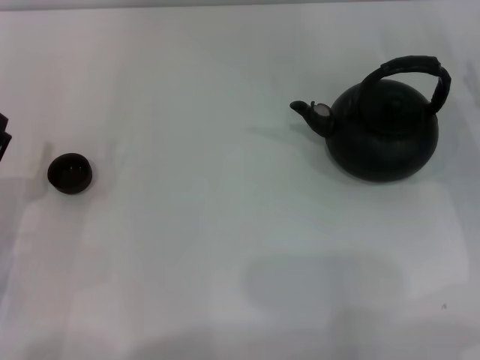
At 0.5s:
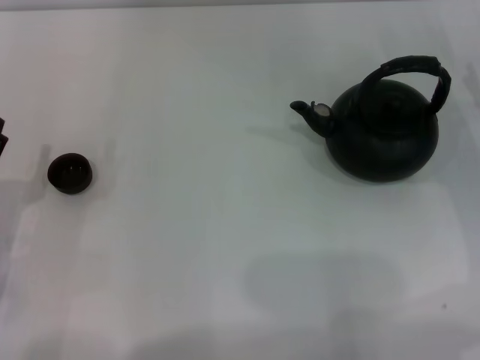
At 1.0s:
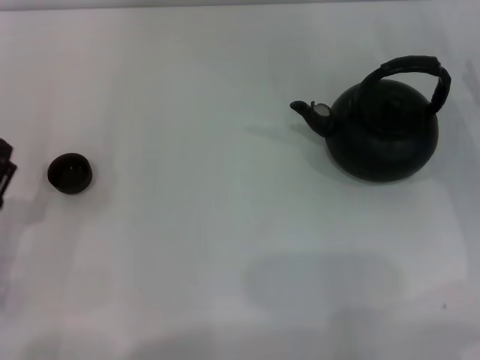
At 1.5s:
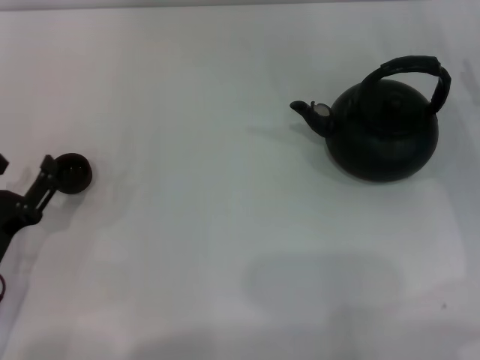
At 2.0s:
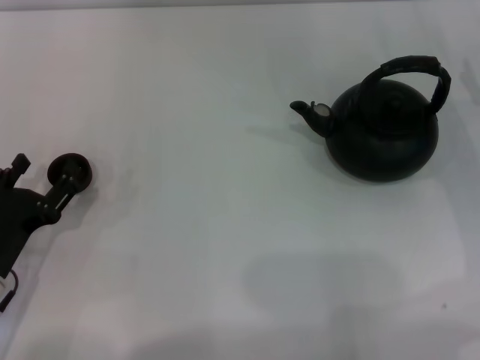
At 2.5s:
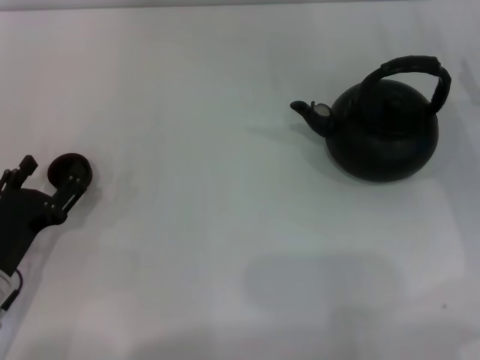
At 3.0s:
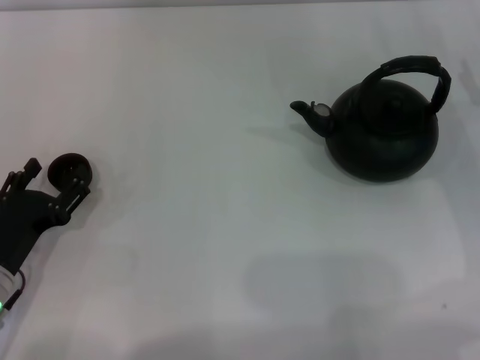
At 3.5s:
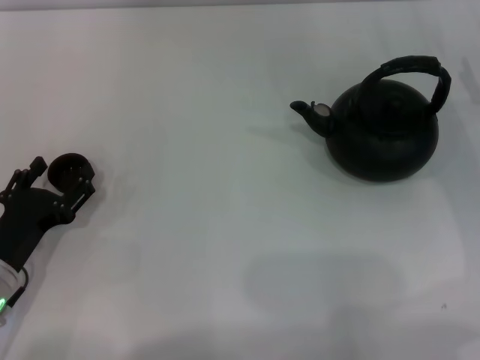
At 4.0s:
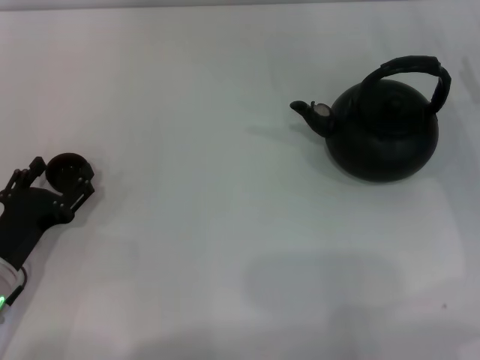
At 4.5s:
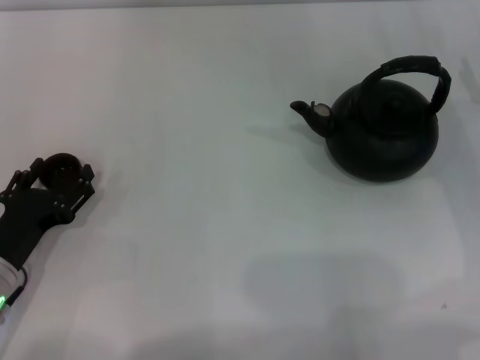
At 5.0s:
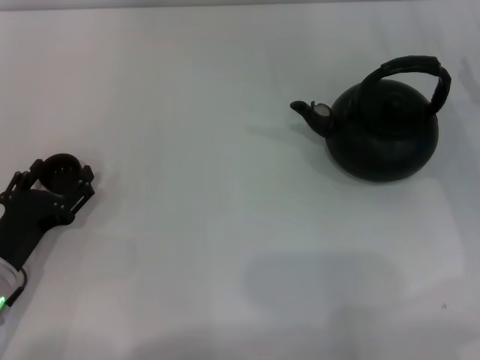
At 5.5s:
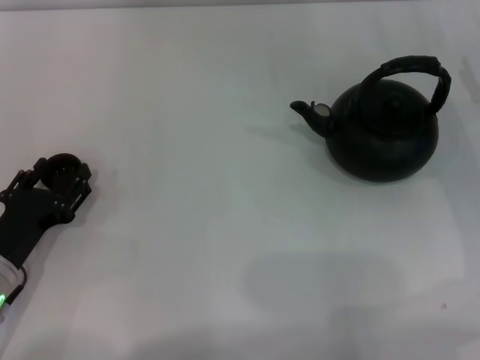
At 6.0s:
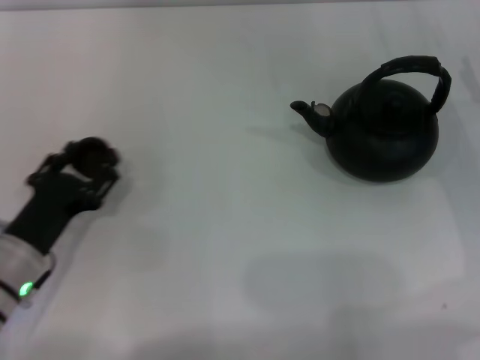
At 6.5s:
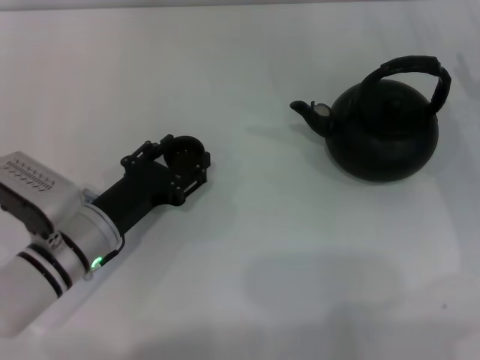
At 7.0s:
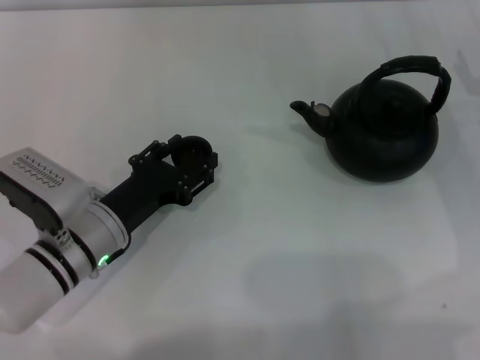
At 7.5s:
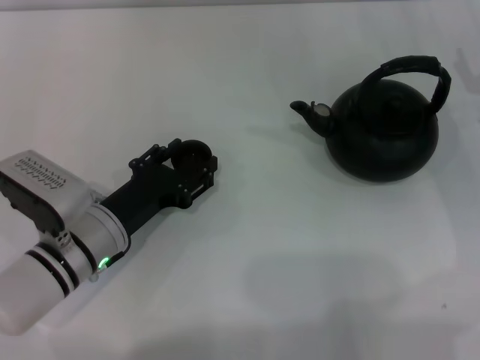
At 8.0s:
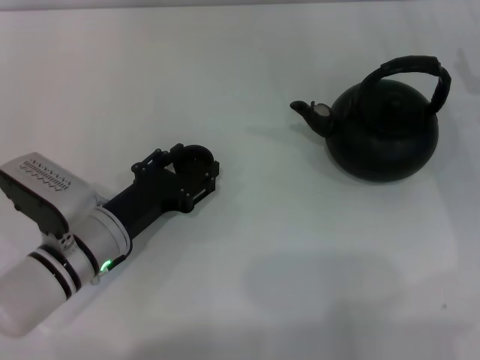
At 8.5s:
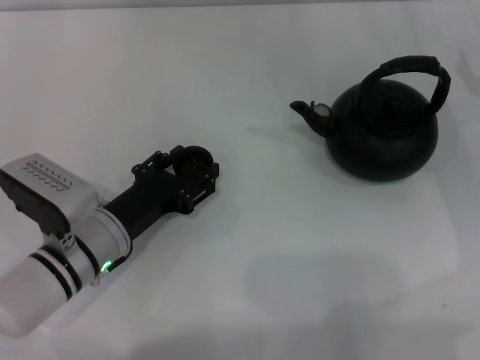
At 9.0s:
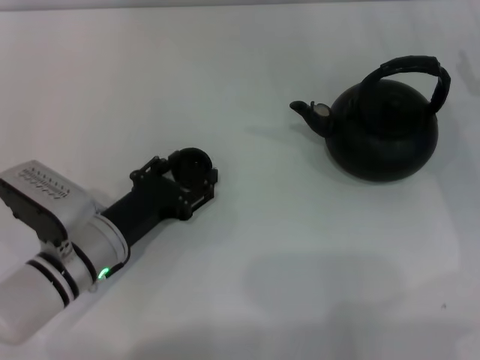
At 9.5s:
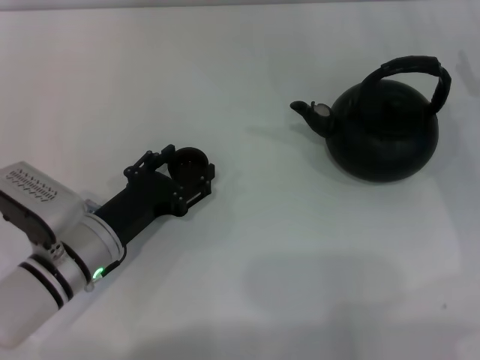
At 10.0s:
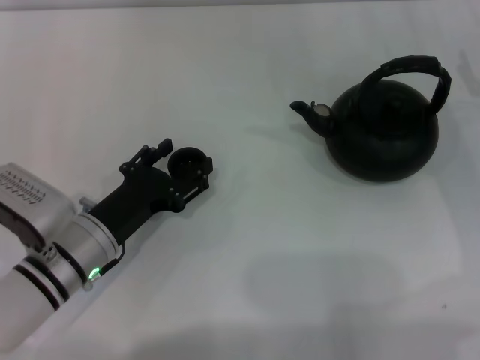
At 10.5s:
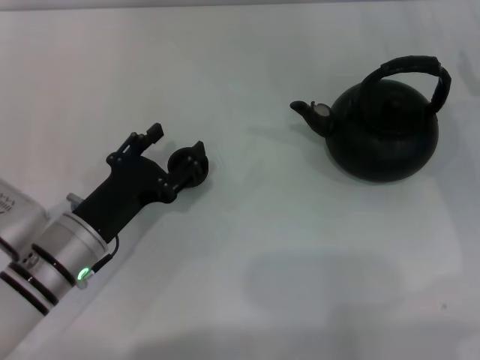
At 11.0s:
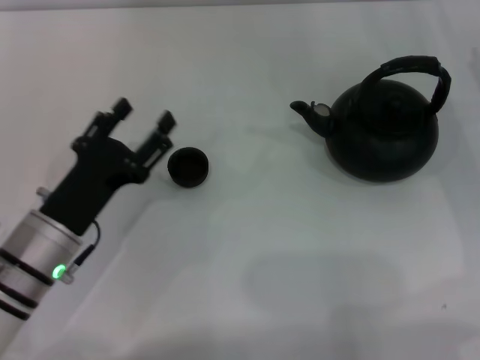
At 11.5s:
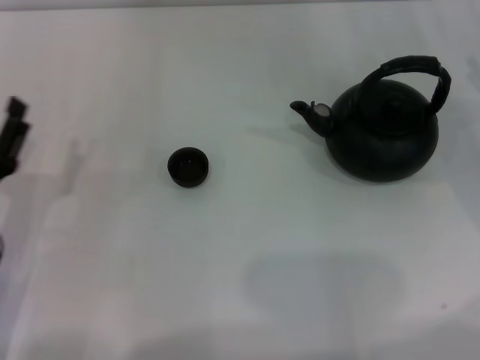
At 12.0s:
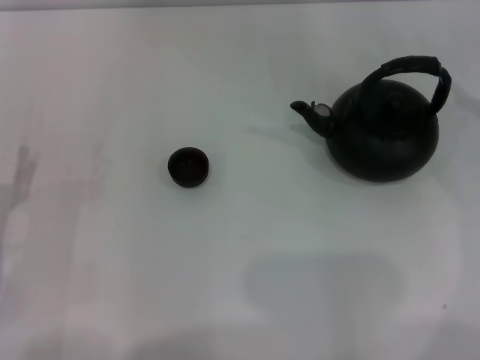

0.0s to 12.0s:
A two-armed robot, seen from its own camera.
Task of the whole recording: Grasp the handle of the teapot with one hand and pour tea into the teacup.
Step, 0.0s to 5.5s: Pick up the teacup with the left gripper.
Step, 6.0s to 11.0s: Place the teacup in the center of view with the left gripper.
0.0s to 2.0s: The grippers make only small movements.
2.0s to 4.0s: There are only small adjustments of the grippers.
4.0s to 6.0s: The left gripper closes its fingers.
6.0s to 8.0s: The left gripper moves to the right, roughly 5 cm.
8.0s to 10.0s: The left gripper opens its fingers.
10.0s to 12.0s: The right gripper travels upward by some 10 cm. The left gripper goes about 15 cm to the left and backward.

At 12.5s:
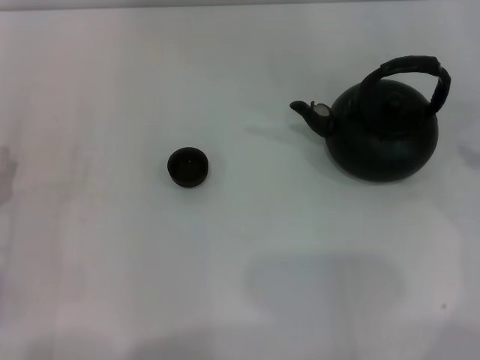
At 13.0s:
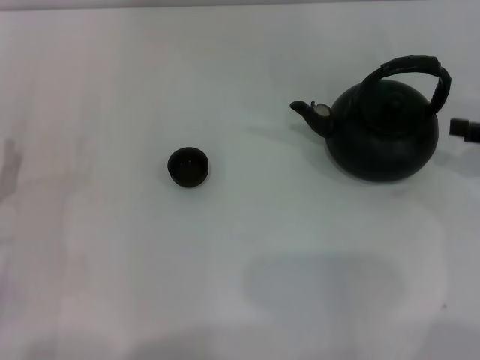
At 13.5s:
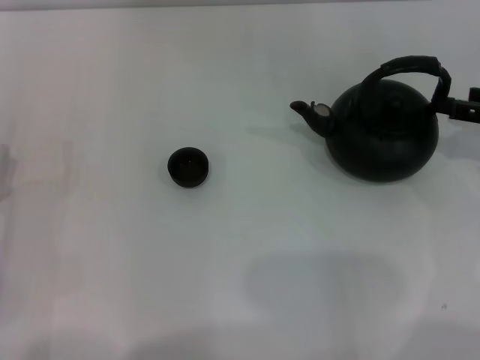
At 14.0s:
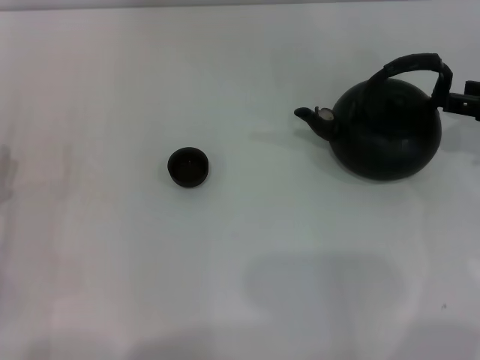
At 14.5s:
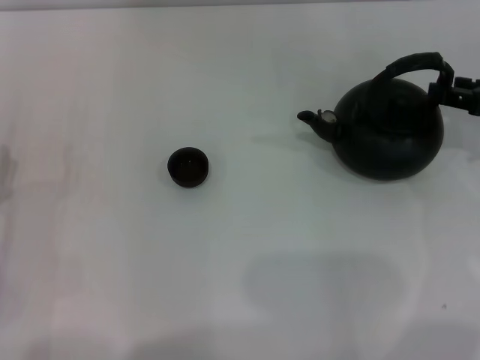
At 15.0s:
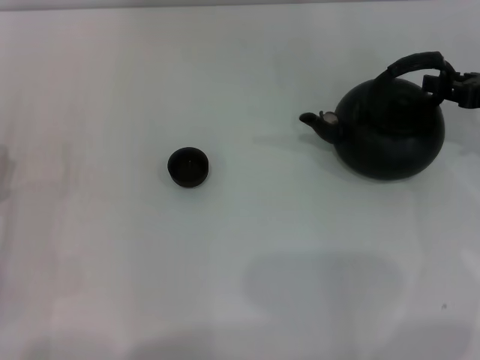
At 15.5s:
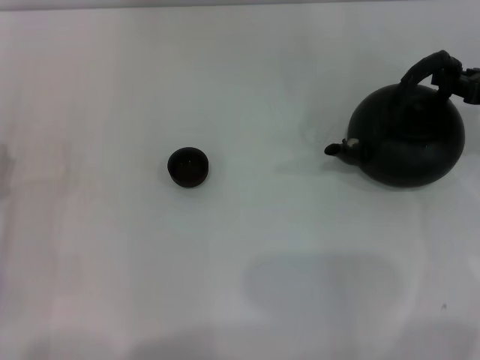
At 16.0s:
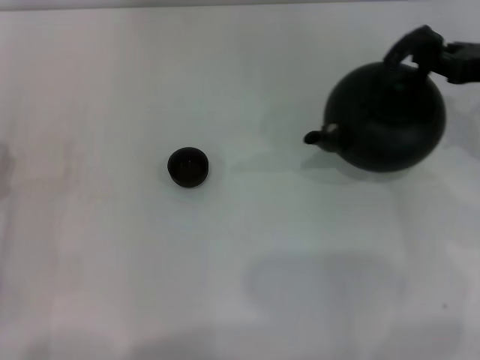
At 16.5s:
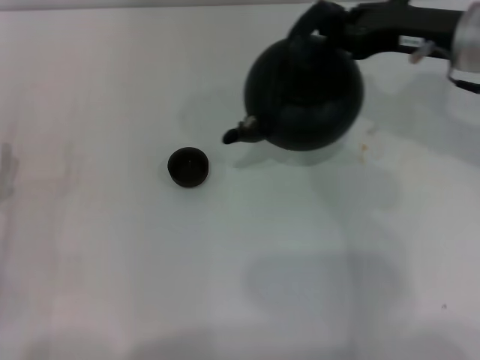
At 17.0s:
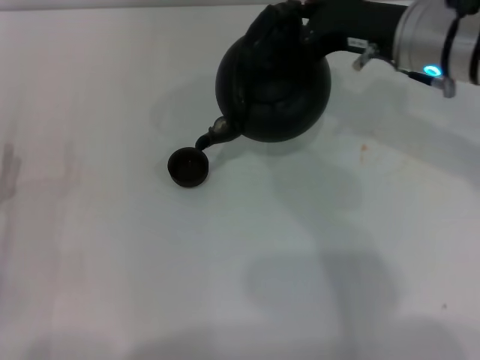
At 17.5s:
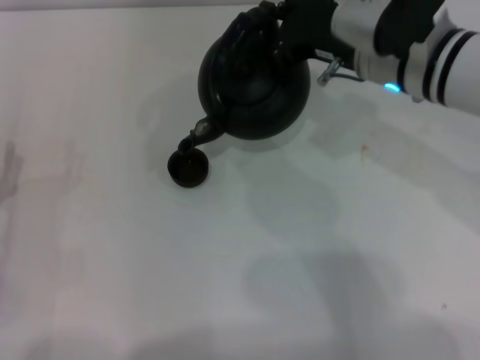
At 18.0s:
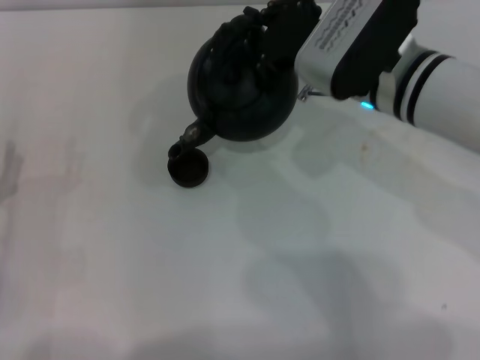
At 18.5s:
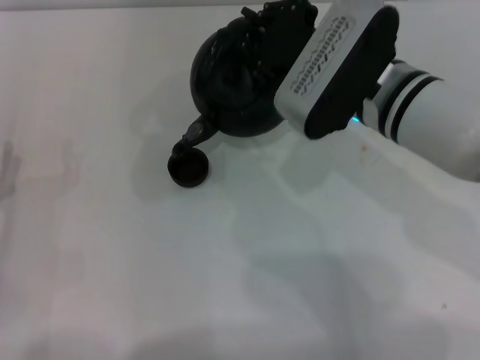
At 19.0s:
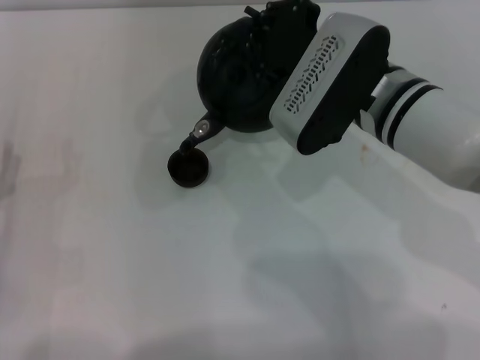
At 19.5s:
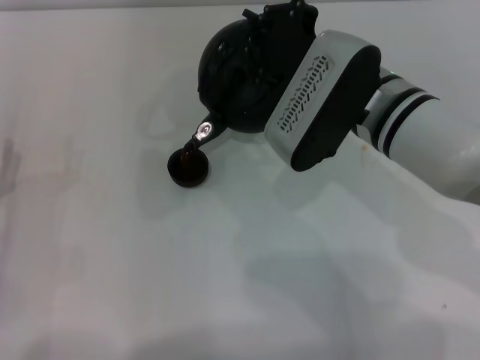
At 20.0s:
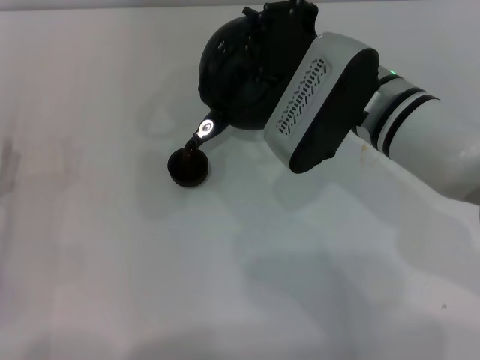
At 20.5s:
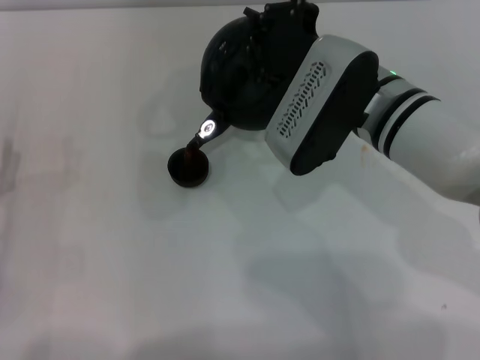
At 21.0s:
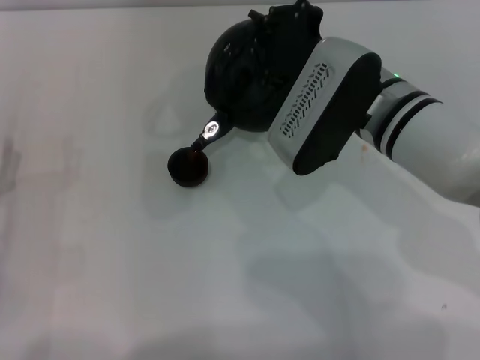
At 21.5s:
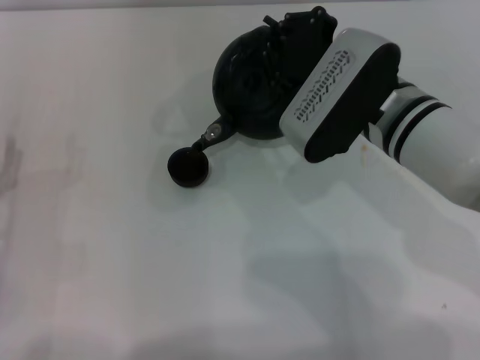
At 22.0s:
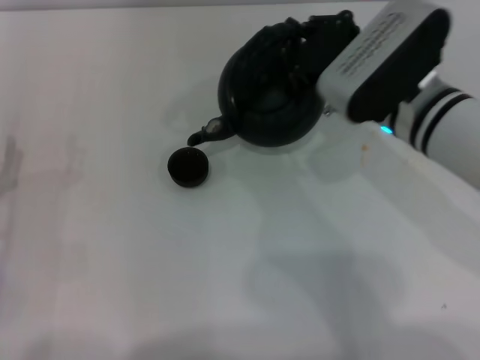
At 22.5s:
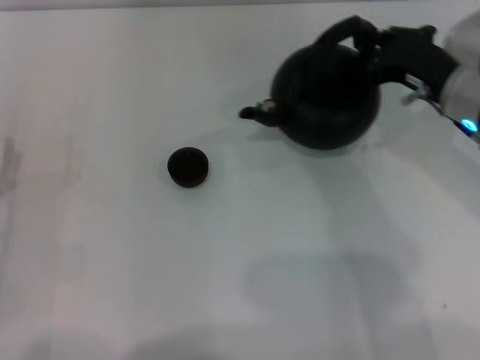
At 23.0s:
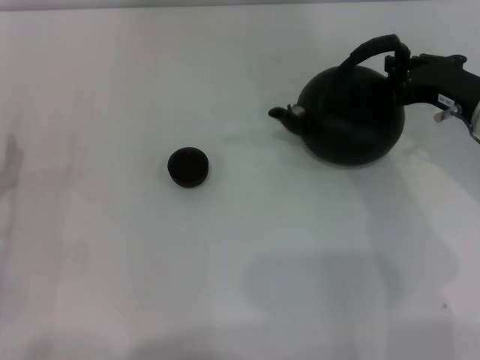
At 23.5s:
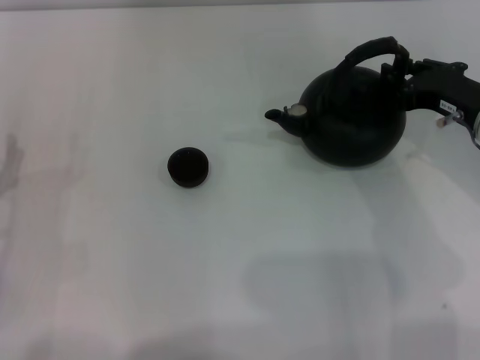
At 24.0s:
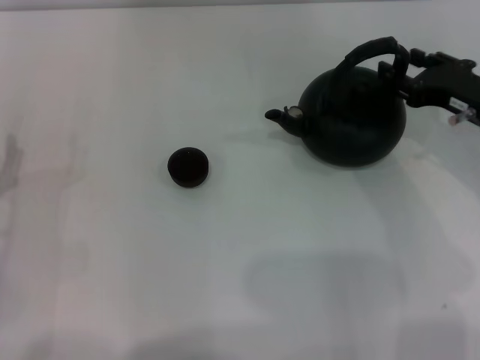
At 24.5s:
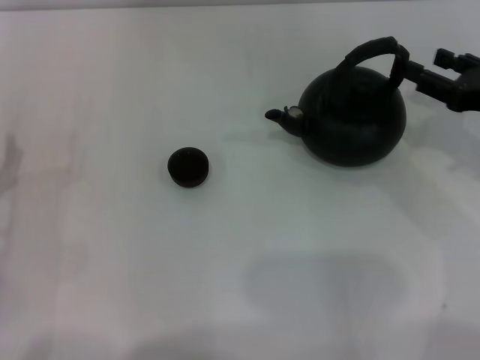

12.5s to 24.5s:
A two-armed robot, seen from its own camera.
Task of the whole recording: Grasp the handle of the teapot with one hand and pour tea into the teacup.
Step, 12.5s to 16.0s: Pick up the teapot with the right gripper.
Step, 16.5s to 22.0s: Pour tea into the teacup with the right gripper.
Step, 22.5s to 24.5s: Put down the teapot with the right gripper.
12.5s to 14.5s: The right gripper goes about 10 cm forward and to the left.
14.5s to 16.5s: The right gripper is displaced to the left and upward by approximately 15 cm, and closes.
16.5s to 18.5s: The right gripper goes some 10 cm to the left.
18.5s to 20.5s: There are only small adjustments of the grippers.
20.5s to 22.5s: The right gripper heads to the right, covering roughly 10 cm.
22.5s to 24.5s: The right gripper heads to the right, covering about 10 cm, and opens.

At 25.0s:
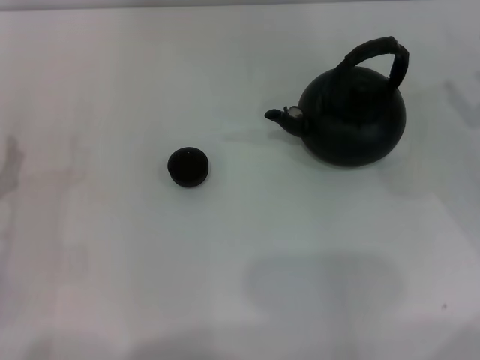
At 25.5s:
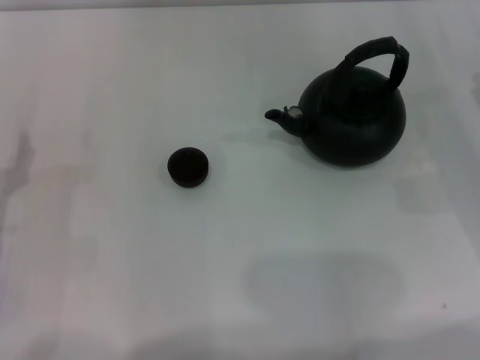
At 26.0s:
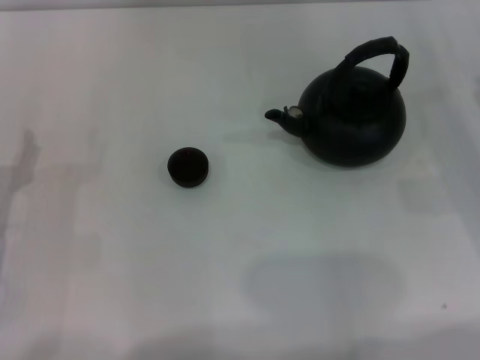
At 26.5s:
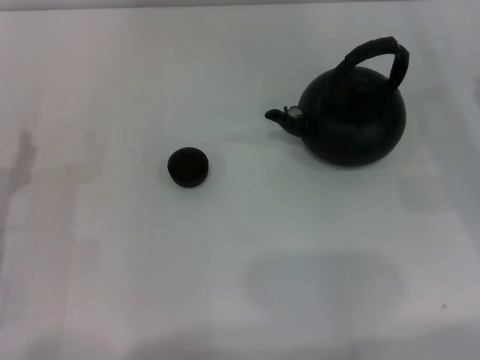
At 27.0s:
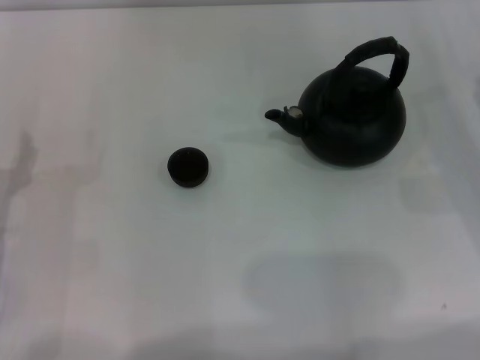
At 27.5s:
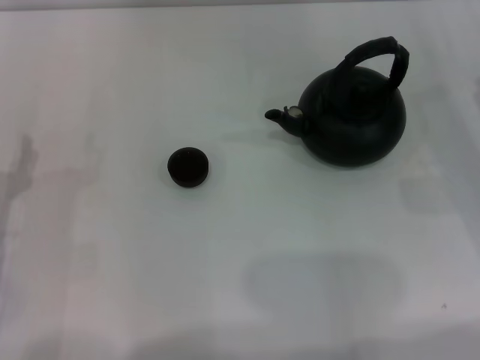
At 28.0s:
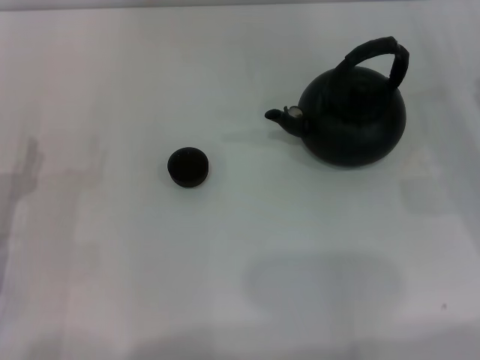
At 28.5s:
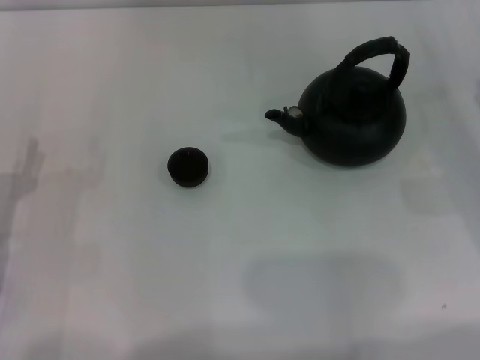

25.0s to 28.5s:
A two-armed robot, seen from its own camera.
Task of the whole recording: Grasp the handle of the teapot with one hand and pour tea into the teacup.
27.0s to 28.5s: Both grippers stay put.
